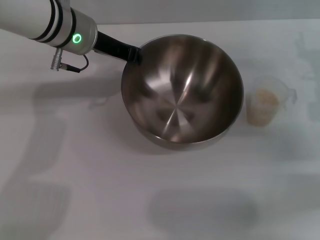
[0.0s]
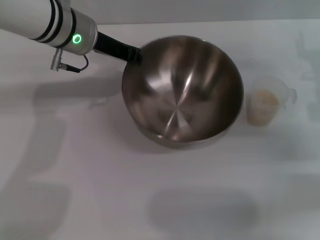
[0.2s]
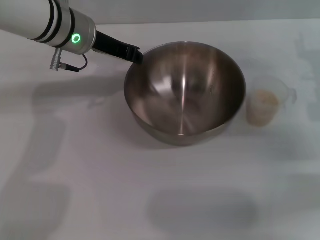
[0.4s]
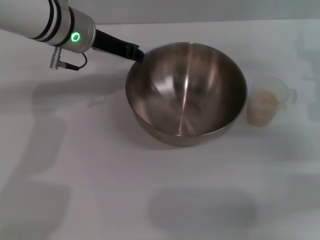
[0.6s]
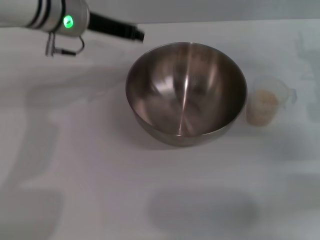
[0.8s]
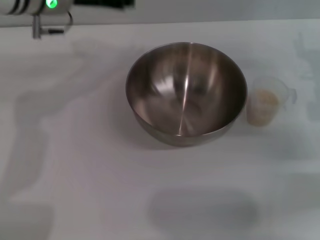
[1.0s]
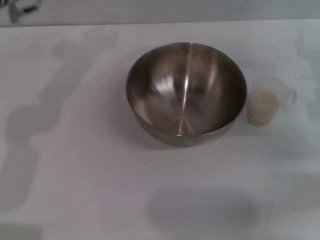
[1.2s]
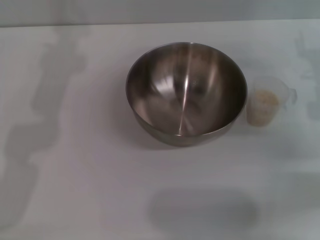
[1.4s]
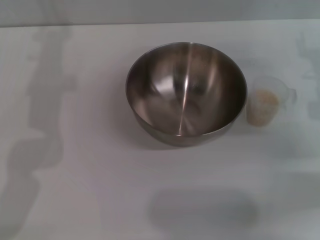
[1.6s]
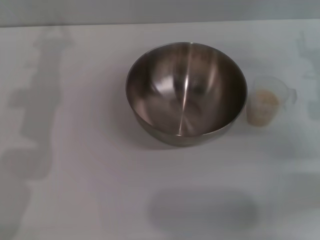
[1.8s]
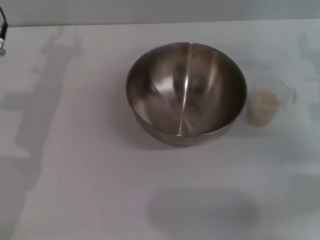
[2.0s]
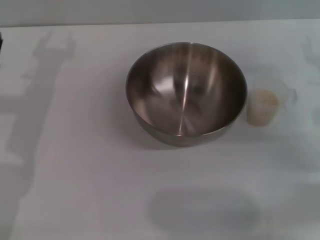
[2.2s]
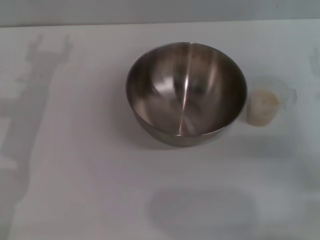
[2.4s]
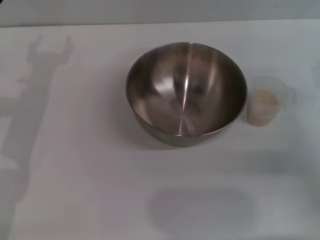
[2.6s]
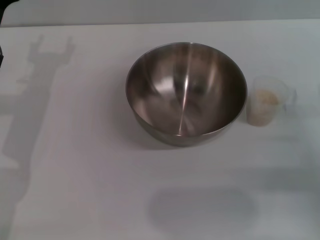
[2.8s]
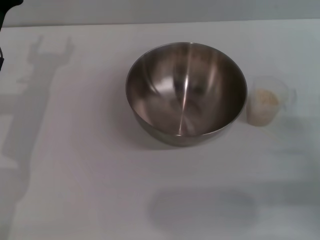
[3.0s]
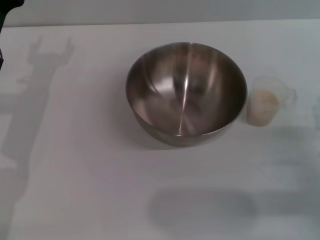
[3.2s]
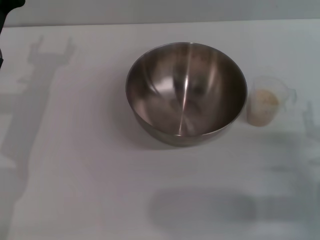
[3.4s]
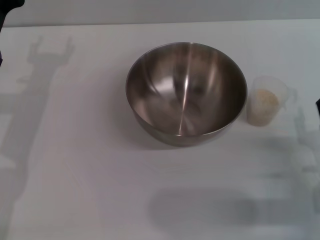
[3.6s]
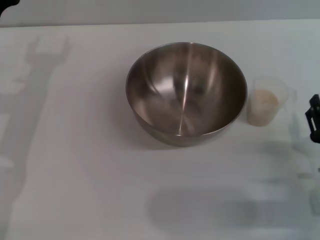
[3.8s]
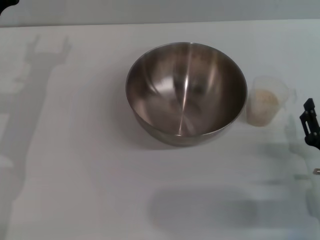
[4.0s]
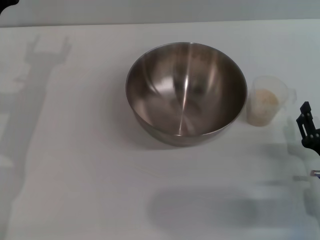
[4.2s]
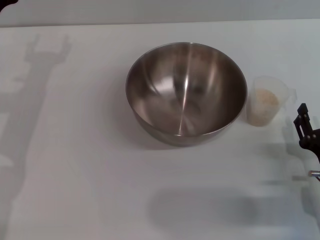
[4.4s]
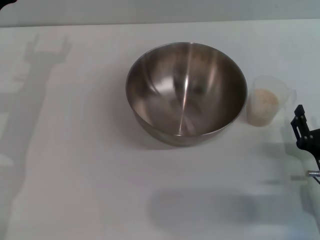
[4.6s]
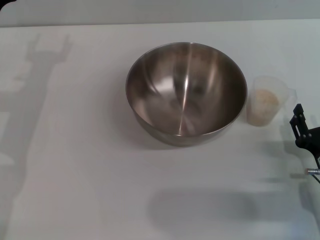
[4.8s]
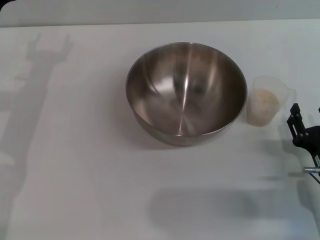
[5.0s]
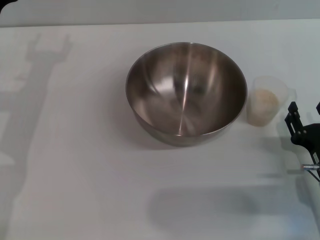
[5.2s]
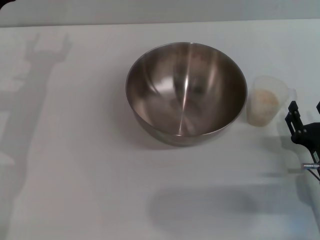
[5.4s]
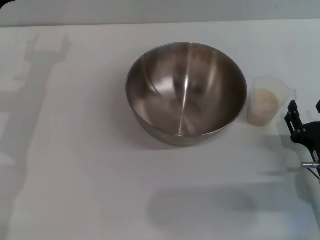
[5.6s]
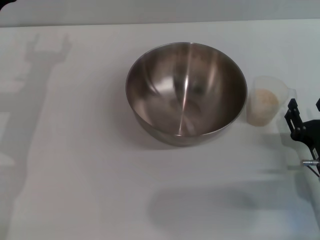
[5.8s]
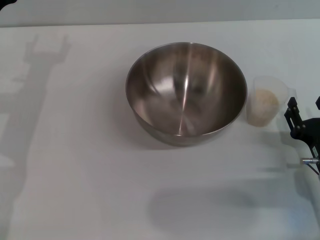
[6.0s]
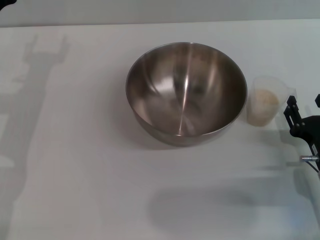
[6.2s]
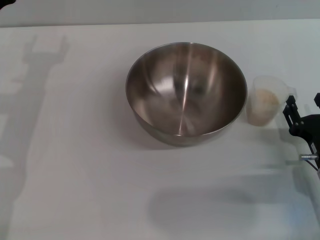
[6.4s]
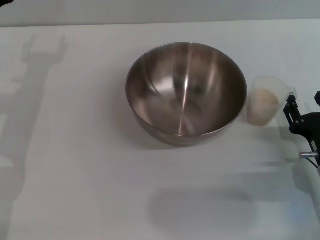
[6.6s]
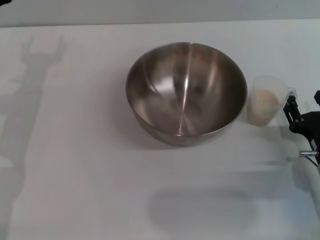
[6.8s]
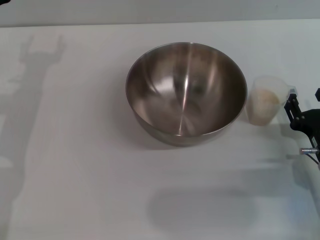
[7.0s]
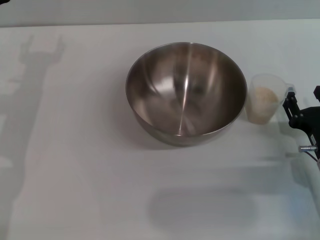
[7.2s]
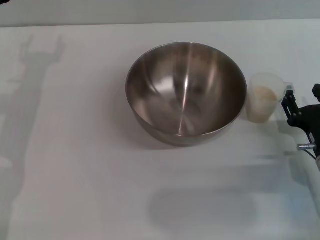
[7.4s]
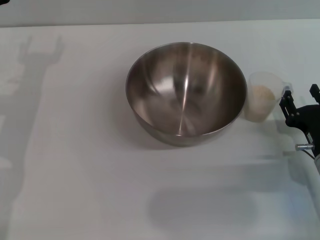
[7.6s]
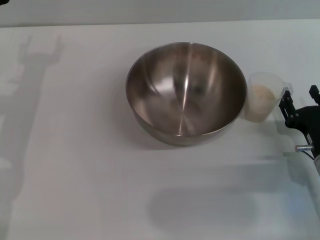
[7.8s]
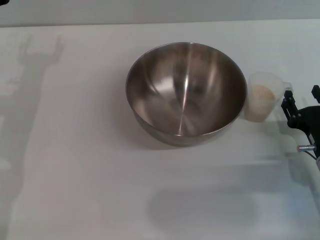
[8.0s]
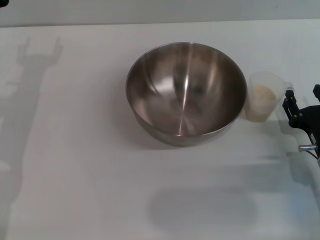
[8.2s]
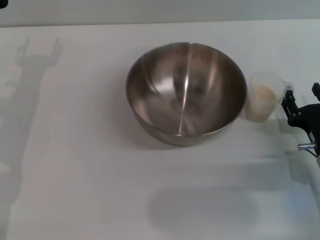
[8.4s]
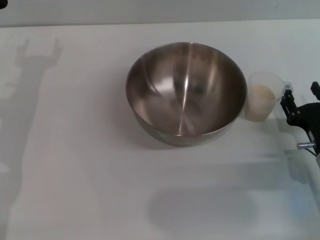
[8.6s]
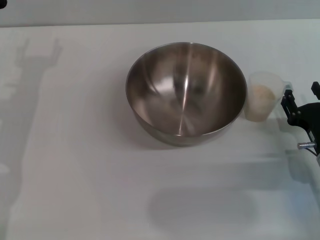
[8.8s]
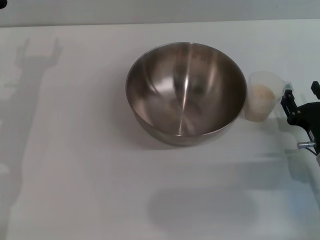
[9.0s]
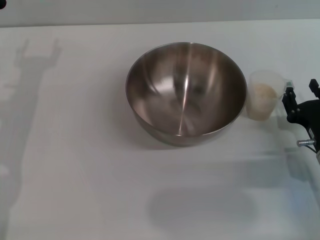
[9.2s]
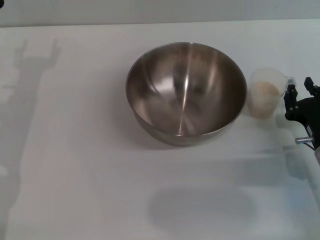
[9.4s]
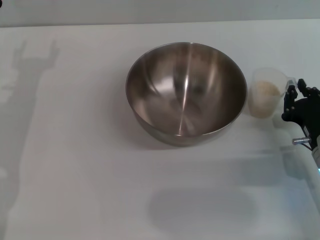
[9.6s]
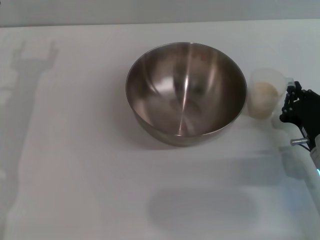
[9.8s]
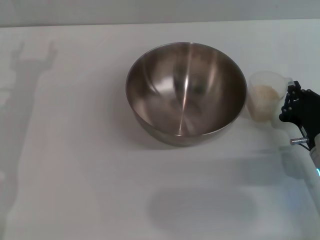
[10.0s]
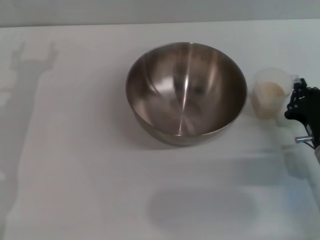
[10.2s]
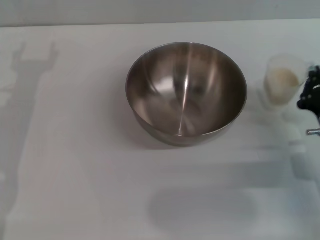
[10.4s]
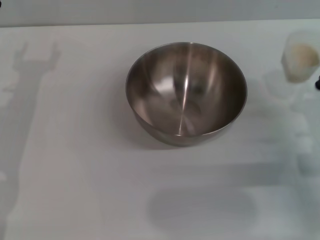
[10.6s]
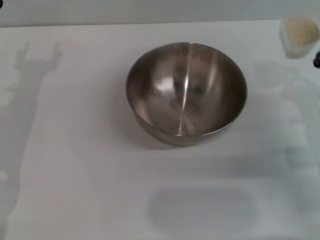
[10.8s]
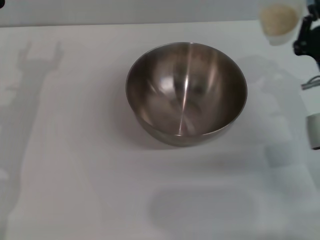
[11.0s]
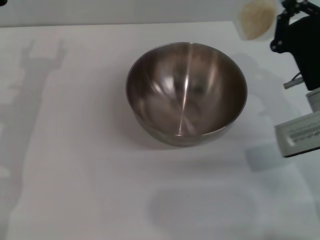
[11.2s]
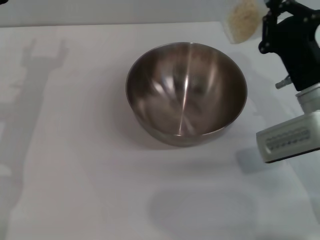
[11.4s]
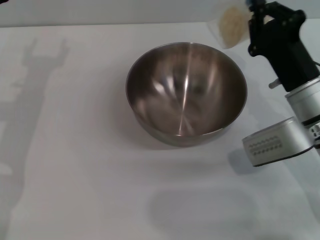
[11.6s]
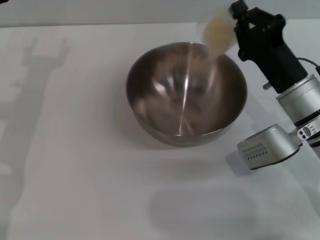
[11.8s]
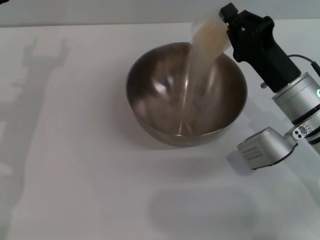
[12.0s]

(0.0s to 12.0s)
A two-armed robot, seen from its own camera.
Task of the whole recording: Place the bowl in the middle of the table with one hand and pour the rice from the grain cup into it with the other hand.
Step, 1.0s - 10.4s: Pick up the cup with rice in it with the right gripper.
0.0s - 1.6s: The left gripper travels to the left by roughly 10 cm.
1.6s - 3.0s: The right gripper moves backward and downward, roughly 15 cm.
3.0s - 4.4s: The right gripper heads to the left, covering roughly 5 cm.
4.4s - 7.6s: The grippers make only small movements.
7.6s - 9.0s: Both grippers stay put.
9.0s - 10.4s: The right gripper closes.
10.4s - 12.0s: The right gripper heads to the left, forward and upward, covering roughly 10 cm.
